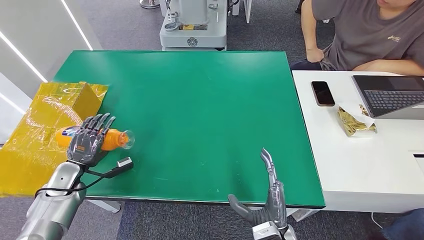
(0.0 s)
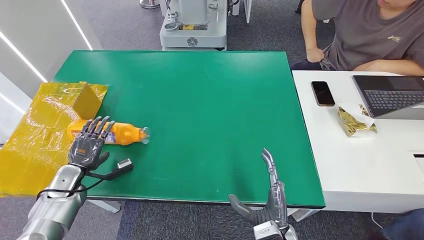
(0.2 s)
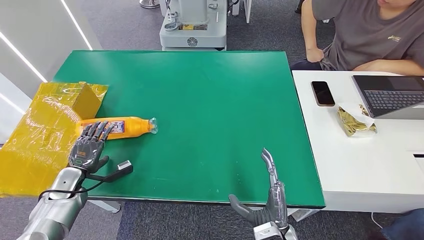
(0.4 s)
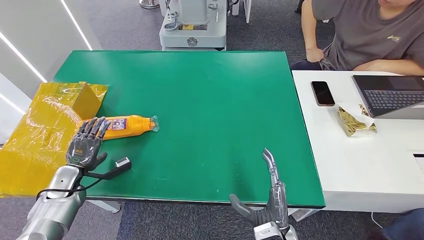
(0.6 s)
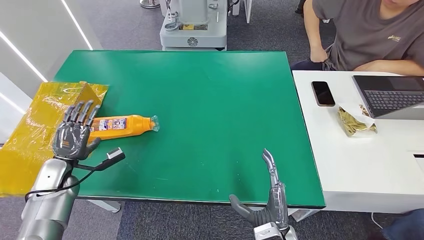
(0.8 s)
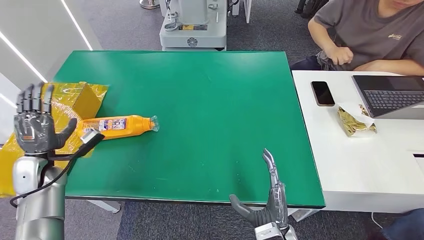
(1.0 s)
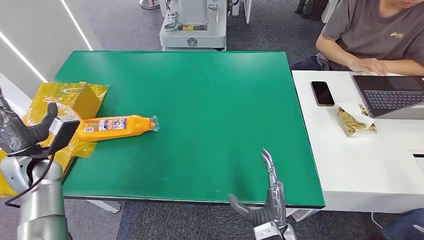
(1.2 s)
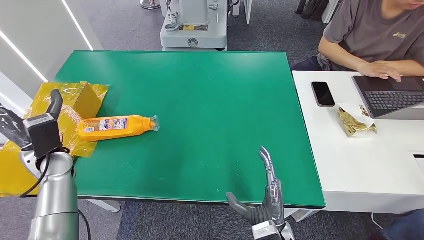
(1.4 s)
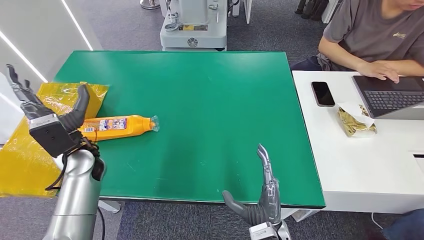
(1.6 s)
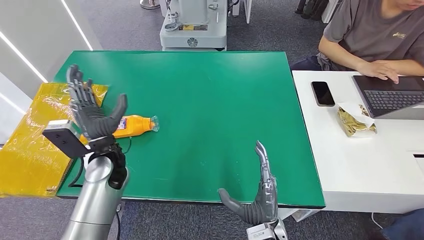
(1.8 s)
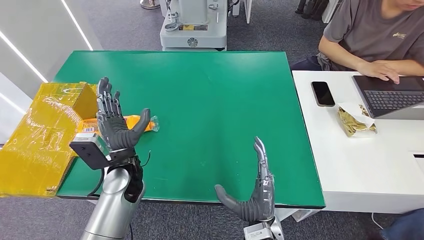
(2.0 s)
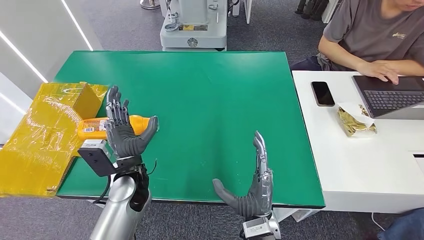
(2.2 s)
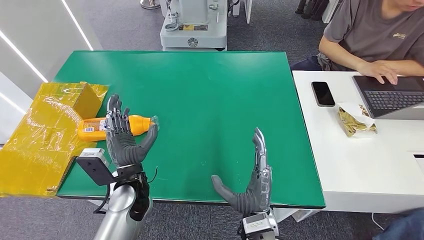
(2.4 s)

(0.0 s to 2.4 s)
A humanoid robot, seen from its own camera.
Step, 0.0 s - 2.4 s: Turn the bottle to the front side.
0.0 s - 1.2 s: The left hand is displaced upward by about 10 cm.
1.2 s - 2.4 s: The left hand is displaced to the right by about 25 cm, while the right hand travels to the left by about 5 cm.
